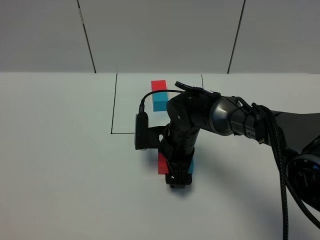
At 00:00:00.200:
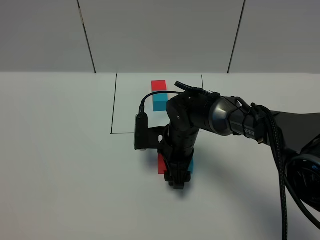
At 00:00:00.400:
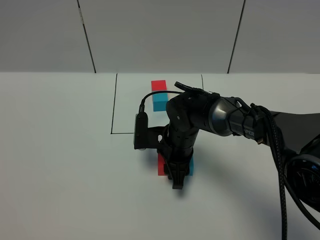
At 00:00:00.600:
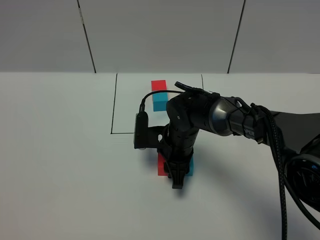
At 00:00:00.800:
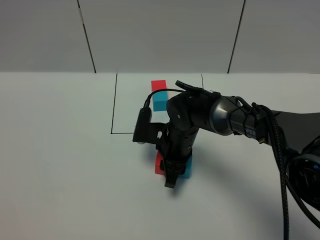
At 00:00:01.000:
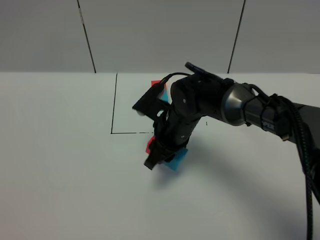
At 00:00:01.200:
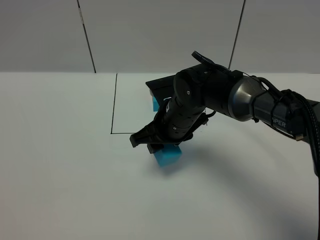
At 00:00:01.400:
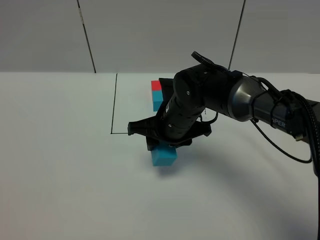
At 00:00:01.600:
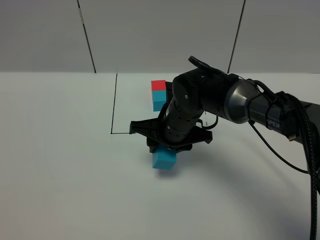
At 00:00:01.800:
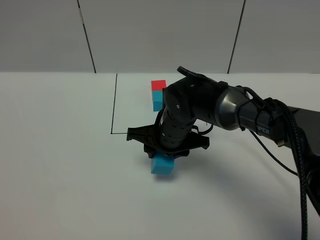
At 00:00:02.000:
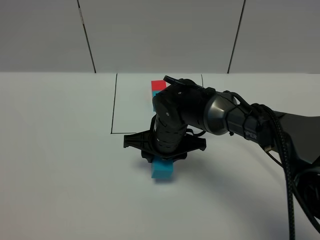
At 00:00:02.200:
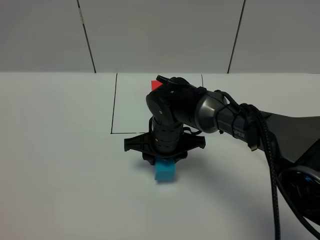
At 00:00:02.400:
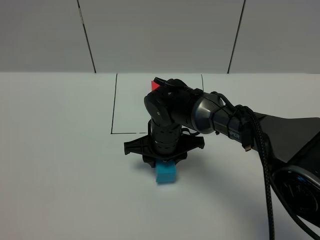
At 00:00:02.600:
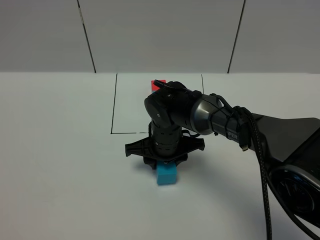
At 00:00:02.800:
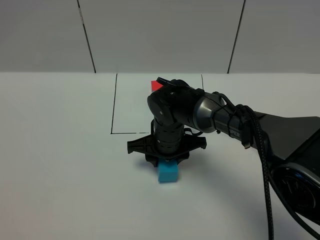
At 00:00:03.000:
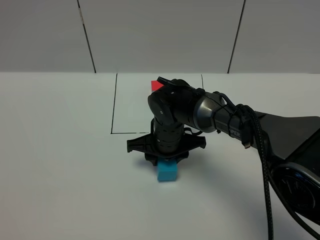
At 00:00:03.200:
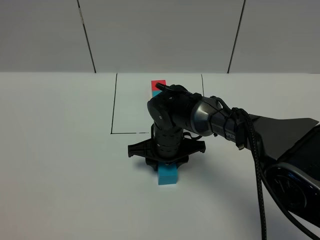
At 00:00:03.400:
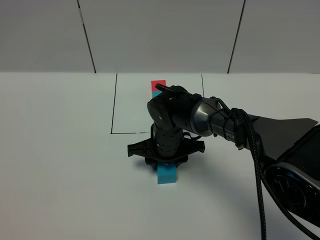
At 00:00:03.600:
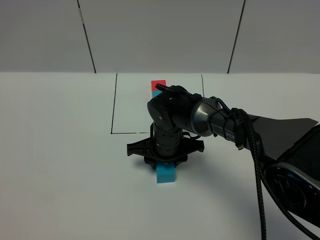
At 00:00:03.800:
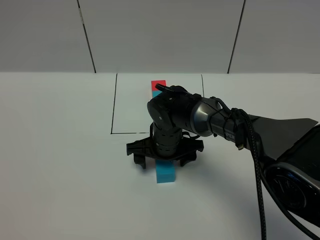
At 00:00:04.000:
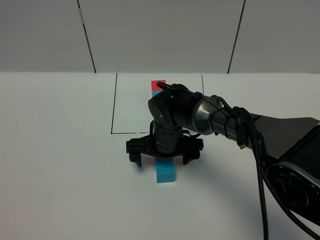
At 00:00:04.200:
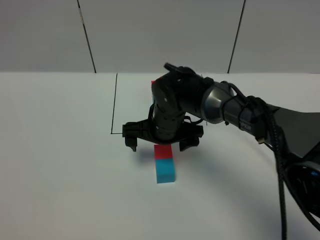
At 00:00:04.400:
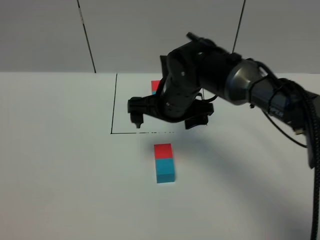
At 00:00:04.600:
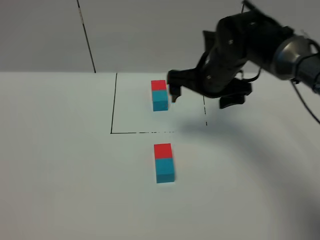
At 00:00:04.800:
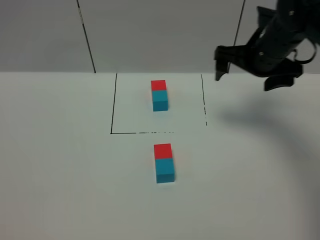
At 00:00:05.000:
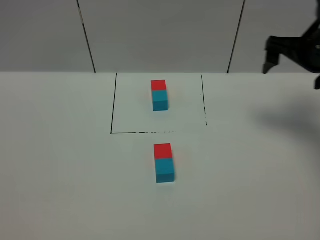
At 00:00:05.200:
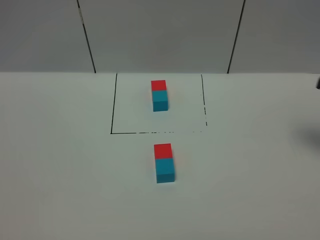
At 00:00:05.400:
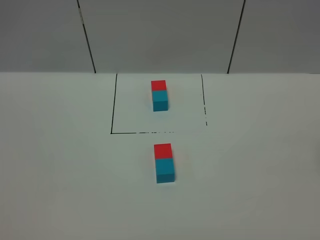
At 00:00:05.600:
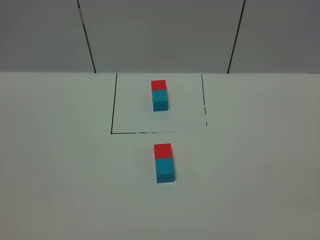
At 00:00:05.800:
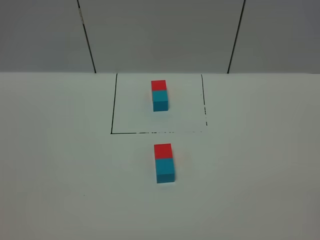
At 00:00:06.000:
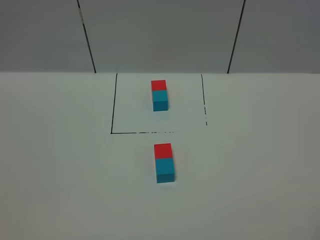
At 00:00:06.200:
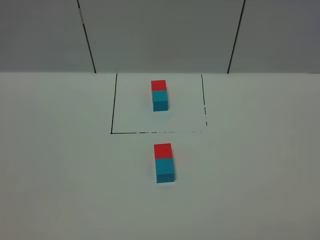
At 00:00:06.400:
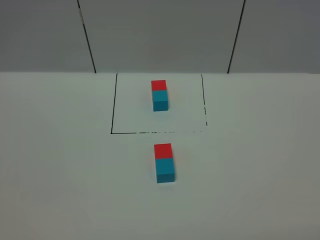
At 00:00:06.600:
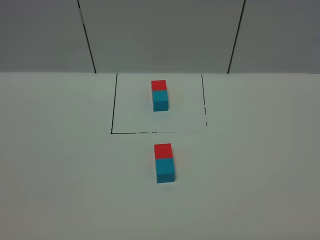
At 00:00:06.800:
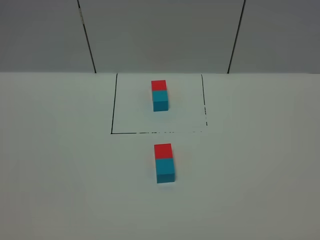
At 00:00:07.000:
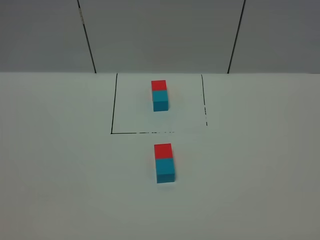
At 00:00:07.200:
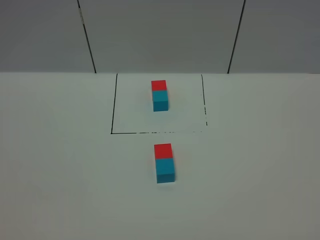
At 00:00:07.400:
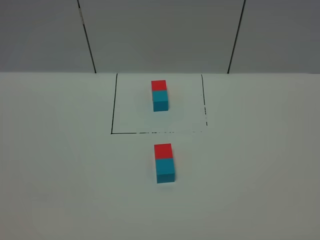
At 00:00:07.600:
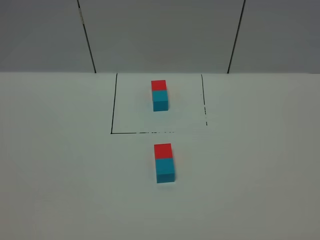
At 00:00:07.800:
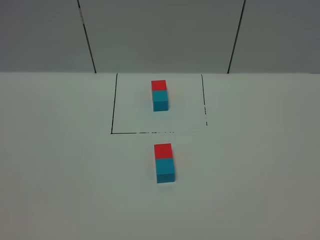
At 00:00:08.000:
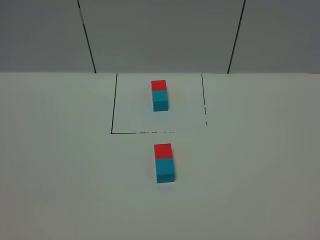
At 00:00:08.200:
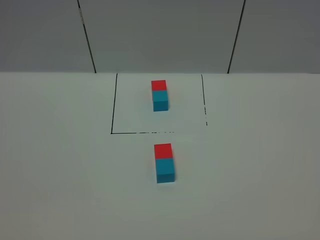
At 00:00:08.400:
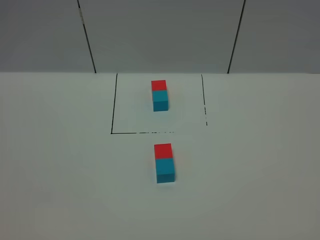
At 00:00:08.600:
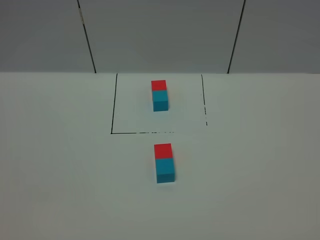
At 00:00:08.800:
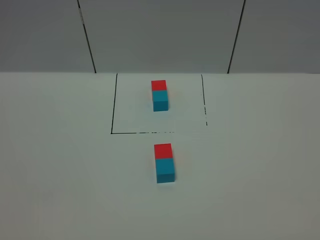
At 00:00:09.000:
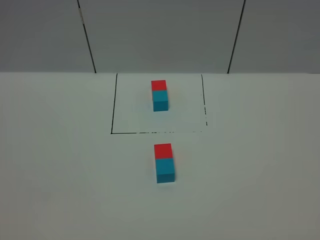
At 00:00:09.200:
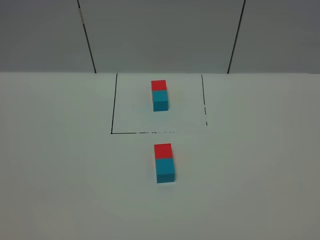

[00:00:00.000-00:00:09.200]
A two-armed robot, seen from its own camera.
Task of the whole recording: According to the building block template in front, assemble the scattered blocks together.
Step, 00:00:00.000 to 00:00:03.800: Adjust the pose of the building blocks.
00:00:00.000 to 00:00:01.600: The right gripper heads upward, covering some 5 cm, and closes its fingers.
00:00:01.600 to 00:00:03.000: There are only small adjustments of the grippers.
00:00:03.000 to 00:00:04.600: The right gripper moves upward and to the right, approximately 15 cm, and opens up.
00:00:04.600 to 00:00:06.200: The right gripper travels backward and to the right by roughly 40 cm.
00:00:07.600 to 00:00:09.200: Both grippers stay put.
